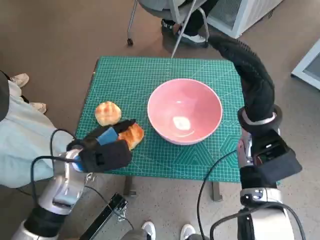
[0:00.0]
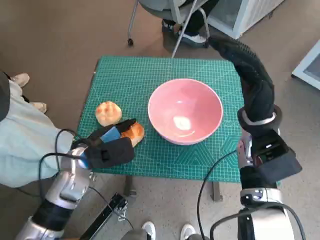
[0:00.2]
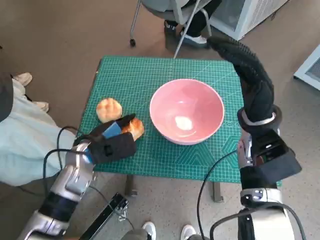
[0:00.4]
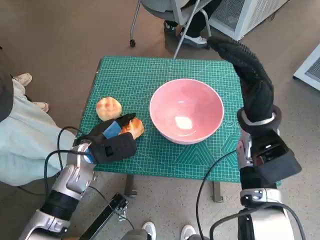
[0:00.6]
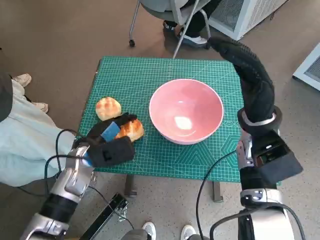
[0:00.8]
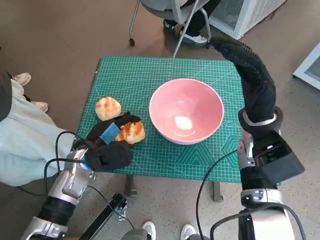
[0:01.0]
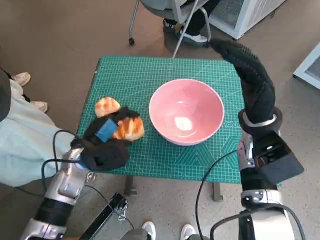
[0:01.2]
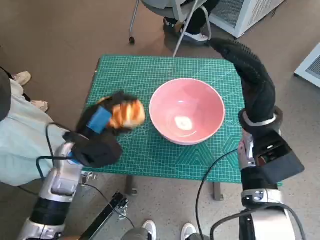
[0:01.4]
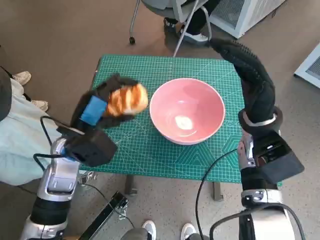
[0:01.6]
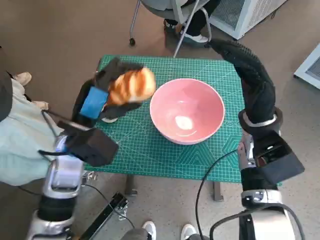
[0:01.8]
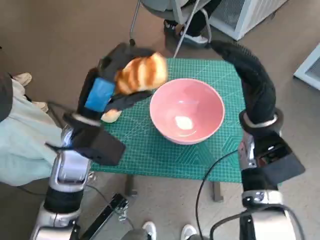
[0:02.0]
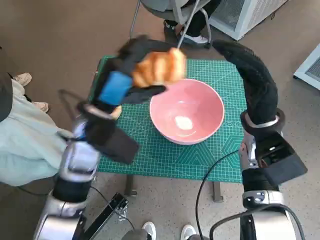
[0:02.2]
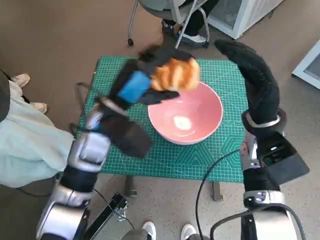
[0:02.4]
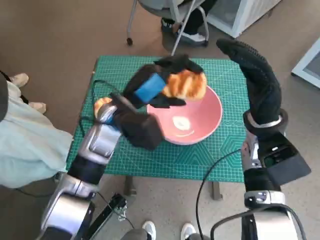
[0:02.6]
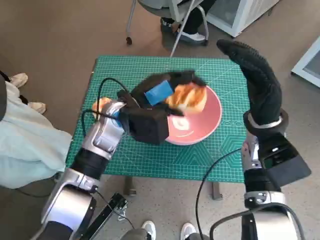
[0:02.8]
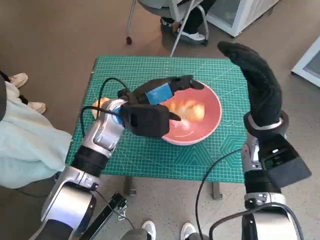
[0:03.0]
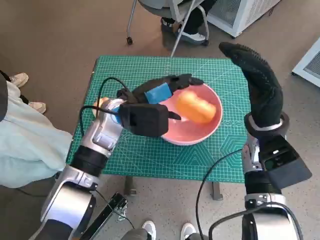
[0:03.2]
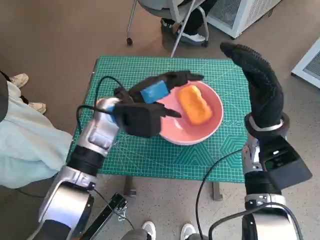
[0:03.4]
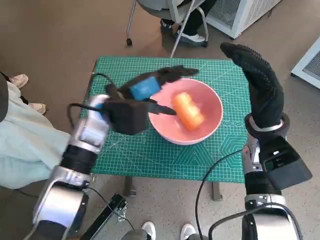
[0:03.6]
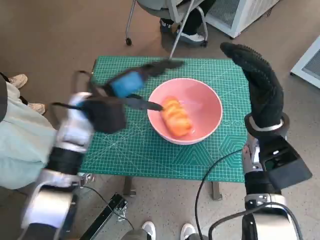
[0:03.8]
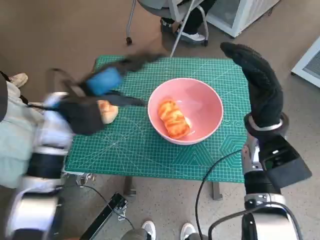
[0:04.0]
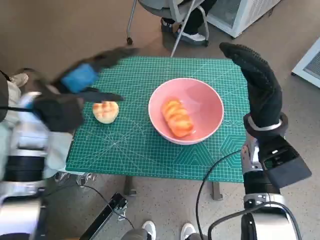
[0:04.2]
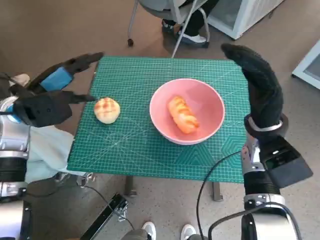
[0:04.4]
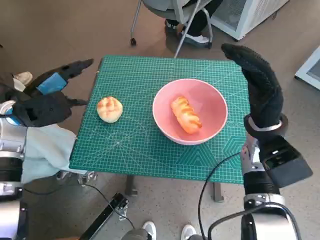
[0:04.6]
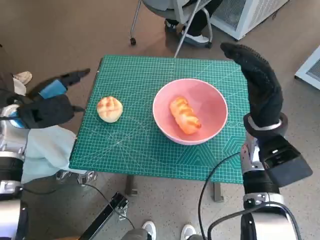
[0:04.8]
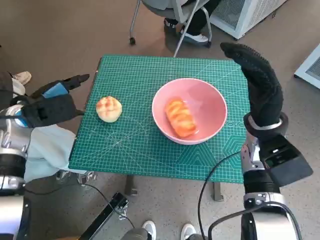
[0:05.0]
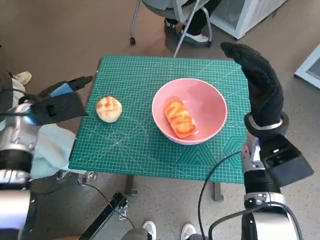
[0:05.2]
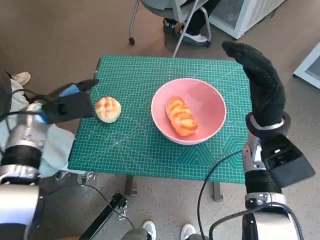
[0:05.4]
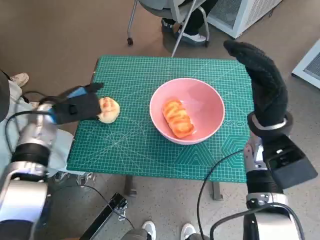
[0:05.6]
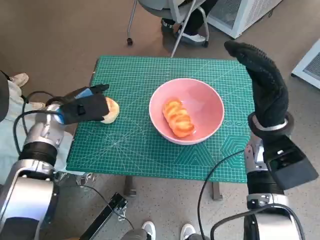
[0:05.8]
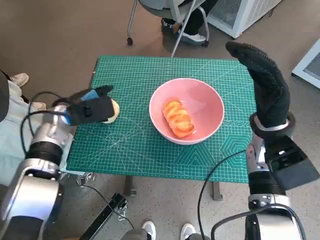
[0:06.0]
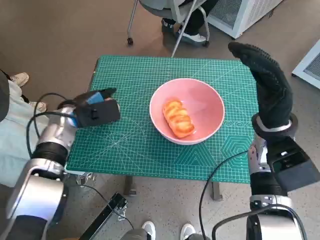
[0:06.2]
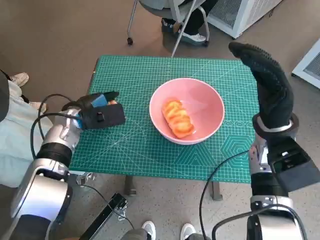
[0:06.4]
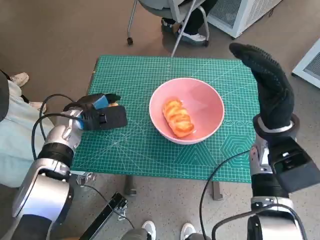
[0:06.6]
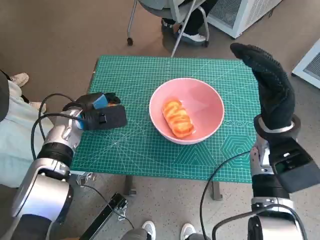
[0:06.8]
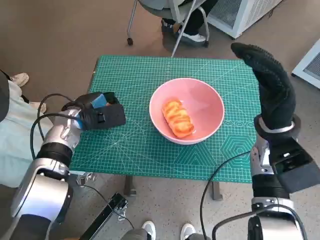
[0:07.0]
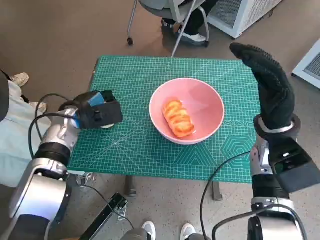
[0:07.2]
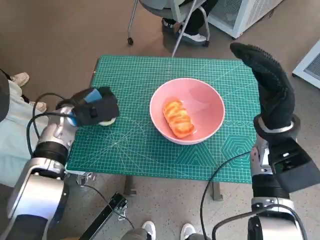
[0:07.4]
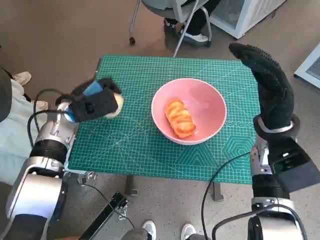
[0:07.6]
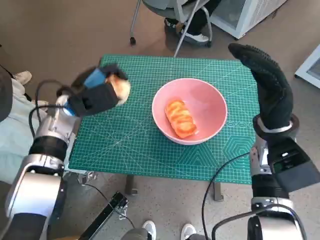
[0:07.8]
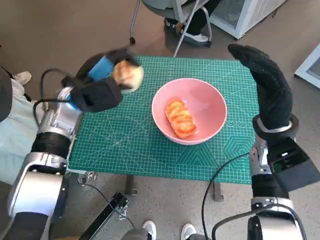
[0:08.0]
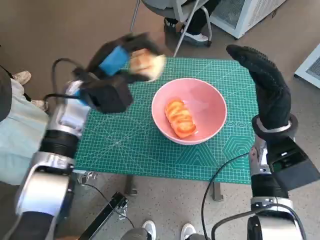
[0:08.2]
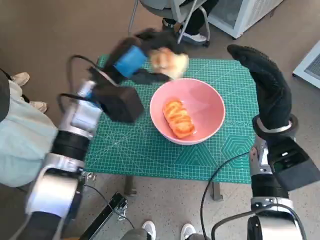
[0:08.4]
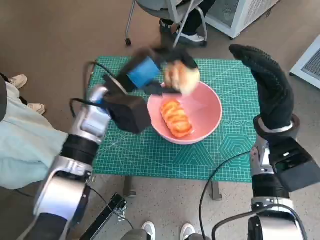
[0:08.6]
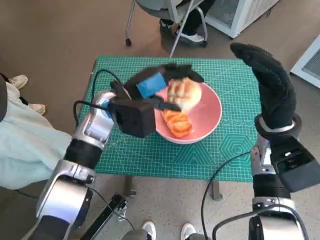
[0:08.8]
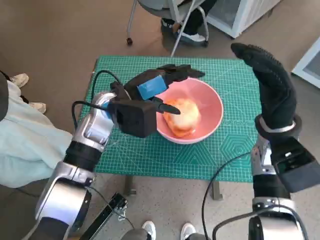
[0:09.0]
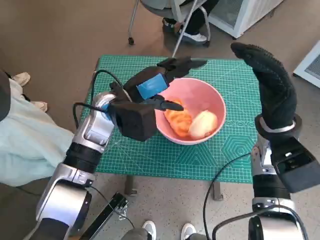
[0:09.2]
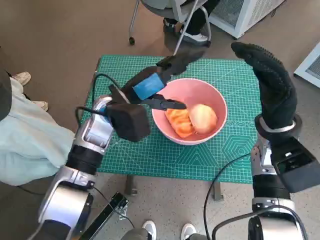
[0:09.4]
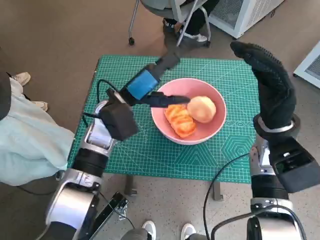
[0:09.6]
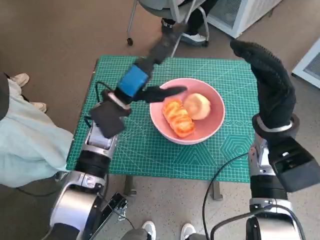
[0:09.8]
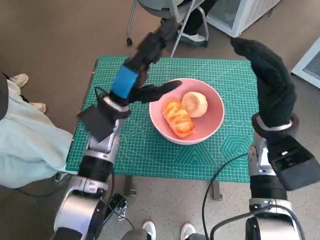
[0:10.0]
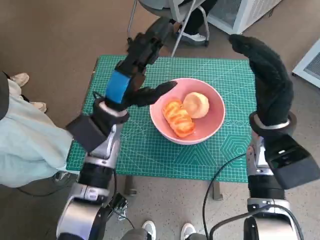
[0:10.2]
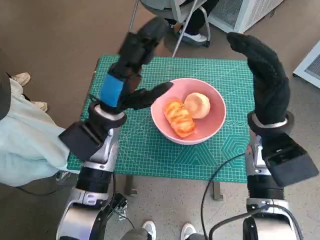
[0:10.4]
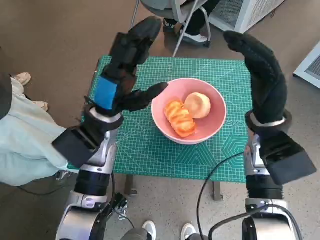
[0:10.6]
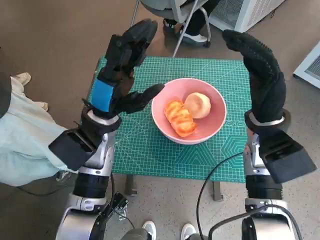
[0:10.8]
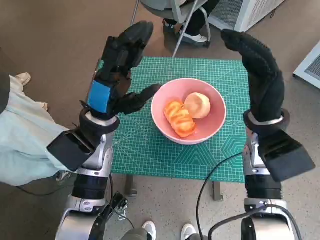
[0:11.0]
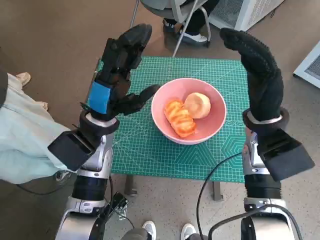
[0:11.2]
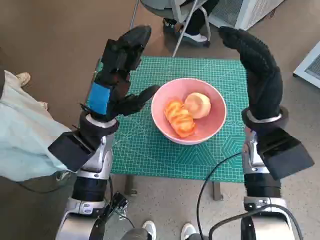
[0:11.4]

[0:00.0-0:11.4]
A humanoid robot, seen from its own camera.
Task of the whole recording: Push the bowl to the center of the table and put the bread into the bowl.
Step, 0:00.8 to 0:03.2: Place the long bread in pink bowl with left hand.
Step, 0:03.4 to 0:07.0: Grasp the round bread with left hand.
Step, 0:07.2 to 0:08.8: Place the round bread in pink bowl with left hand.
0:01.4 to 0:02.8: The left hand travels to the right, forward and upward by roughly 15 cm.
0:02.8 to 0:04.2: The left hand moves to the left, approximately 10 cm.
0:04.2 to 0:05.6: The left hand shifts about 5 cm downward.
0:05.6 to 0:07.2: The left hand ends up about 5 cm from where it was.
0:07.2 to 0:08.6: The left hand shifts some 15 cm to the right and upward.
